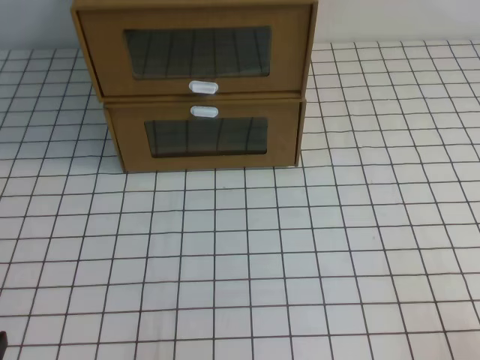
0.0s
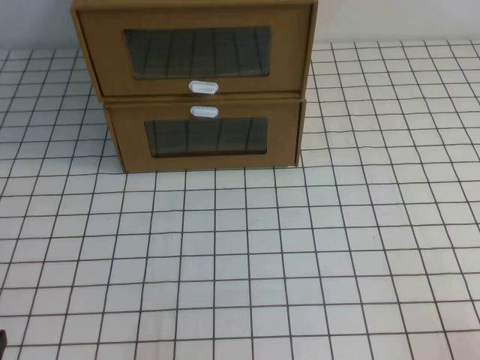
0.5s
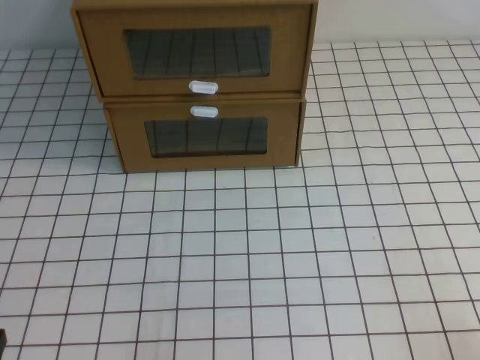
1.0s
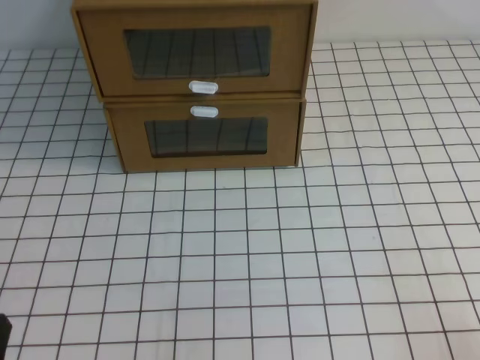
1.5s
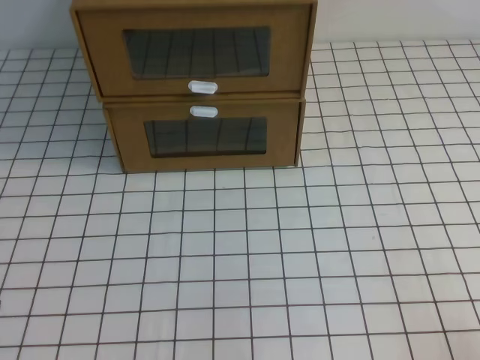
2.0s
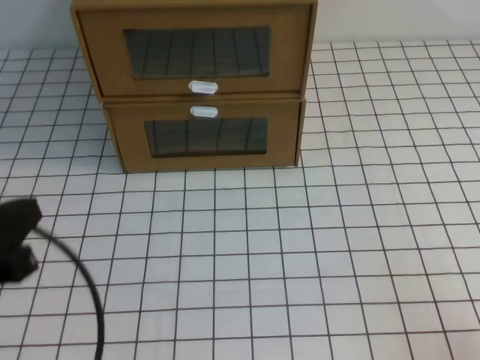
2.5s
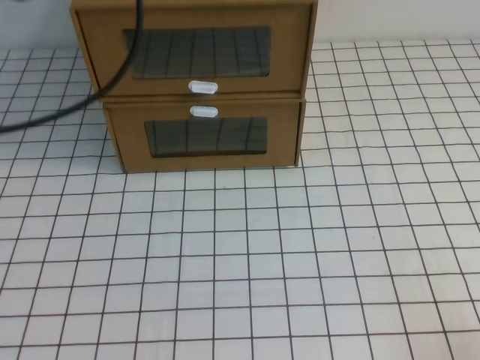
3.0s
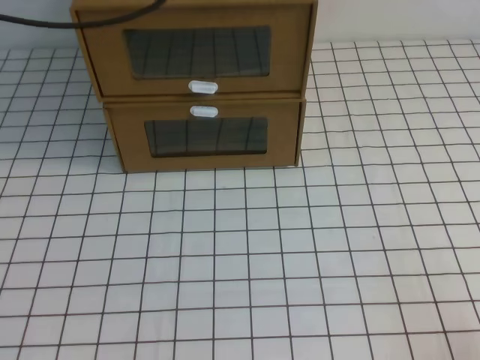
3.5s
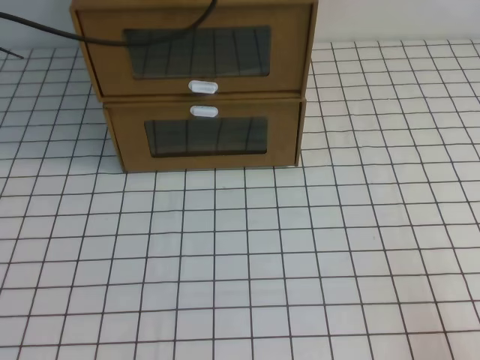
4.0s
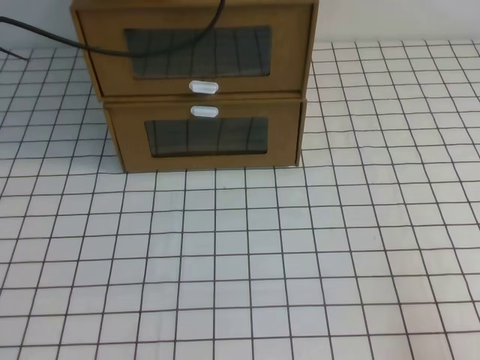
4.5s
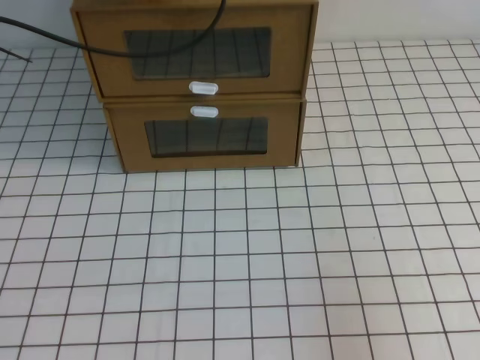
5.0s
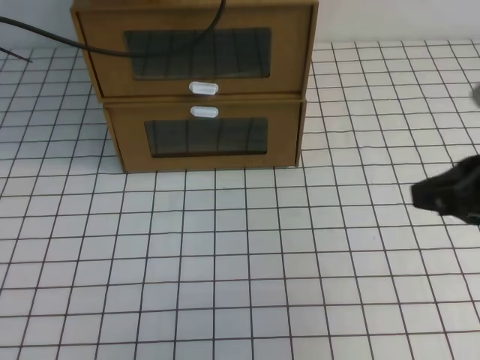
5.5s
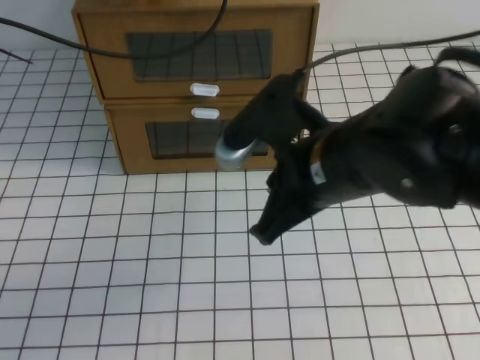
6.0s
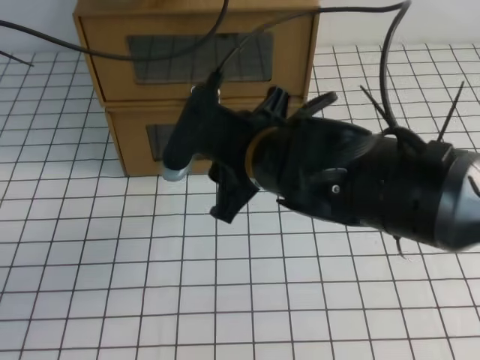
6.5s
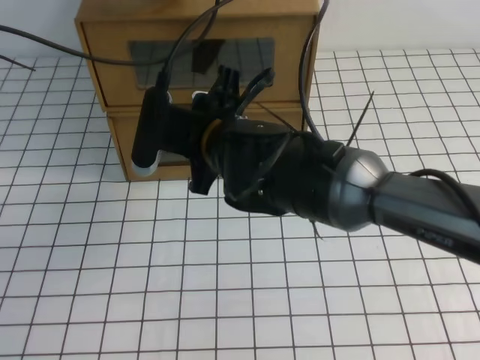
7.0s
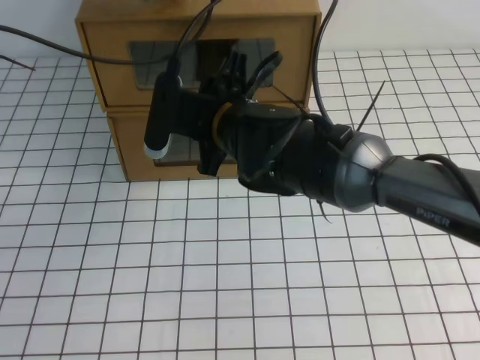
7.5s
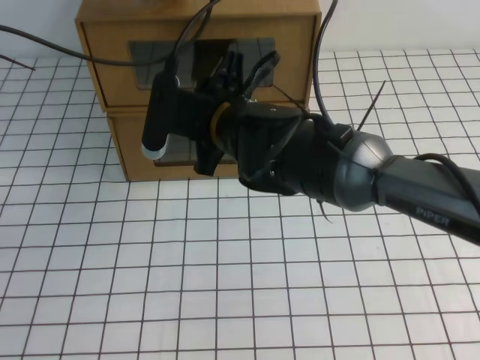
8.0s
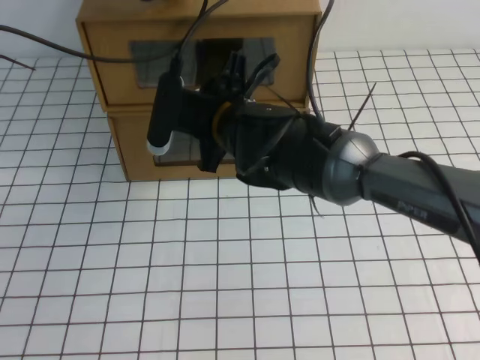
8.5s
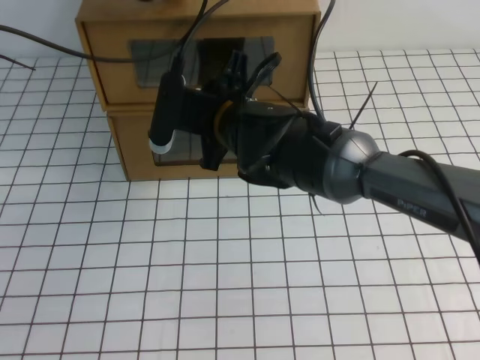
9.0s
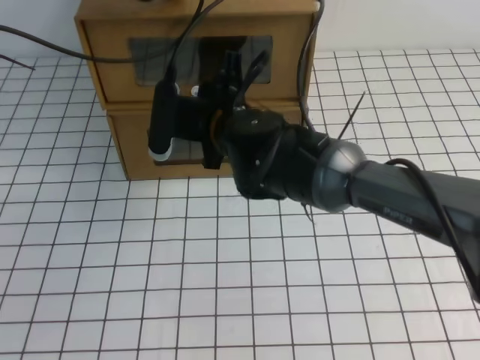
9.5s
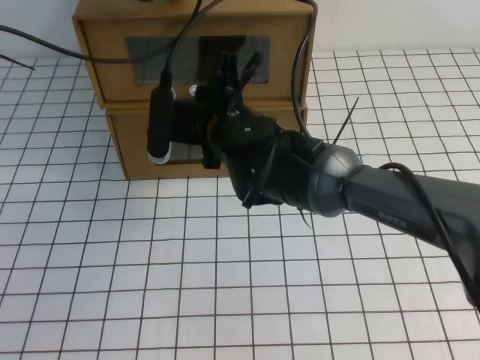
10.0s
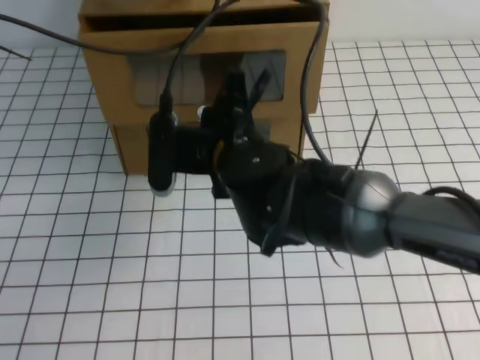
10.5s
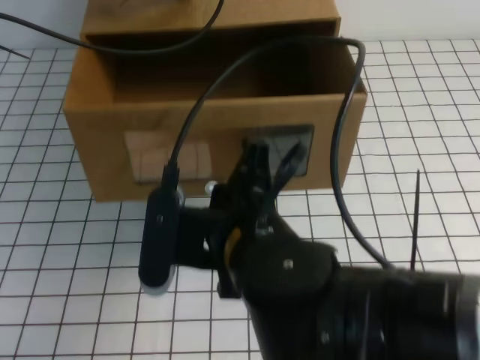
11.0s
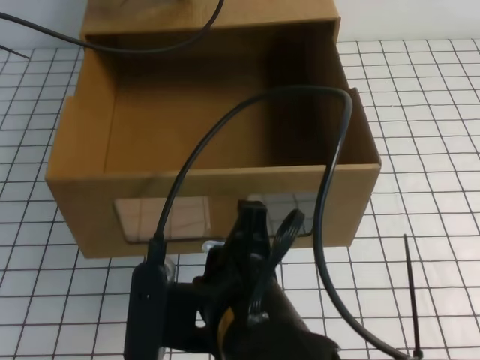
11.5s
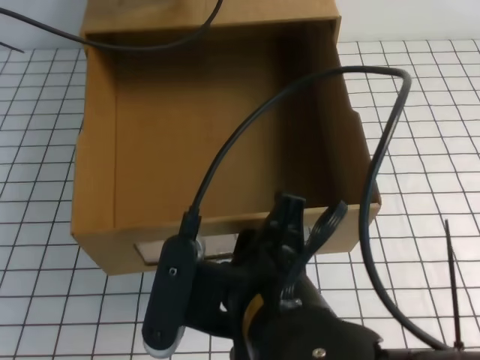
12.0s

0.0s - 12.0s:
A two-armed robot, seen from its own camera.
Task of the whole recording: open the shoebox on the white tablecloth.
4.0s - 6.0s: The right gripper shifts roughly 30 cm to the left, forward and upward.
6.0s - 8.0s: The right gripper moves to the left and forward, roughly 15 cm, and opens up.
8.0s - 10.0s: The right gripper closes its fingers.
10.0s - 12.0s: The right gripper goes some 25 cm backward, and opens.

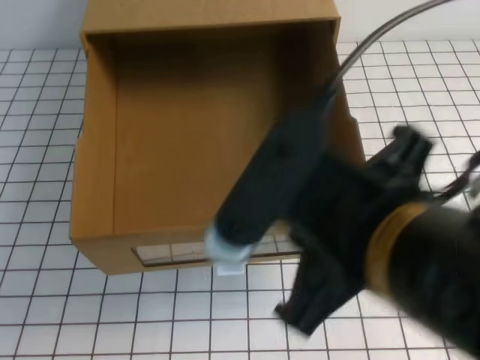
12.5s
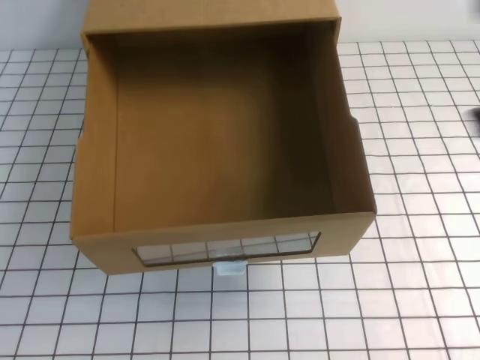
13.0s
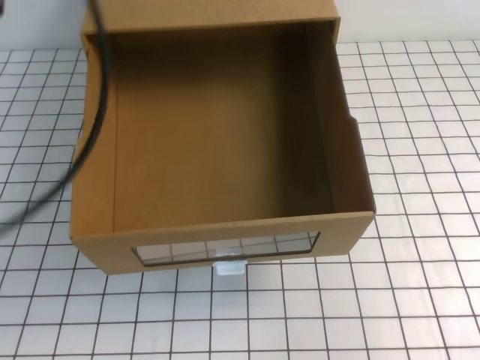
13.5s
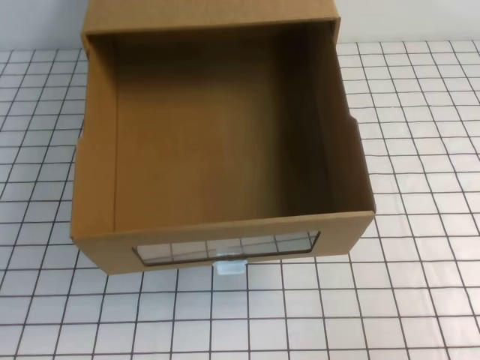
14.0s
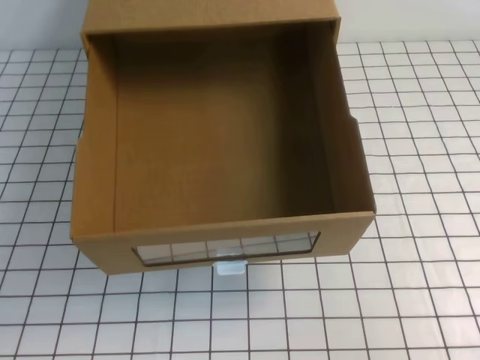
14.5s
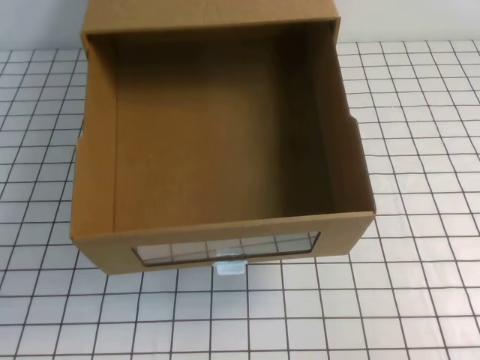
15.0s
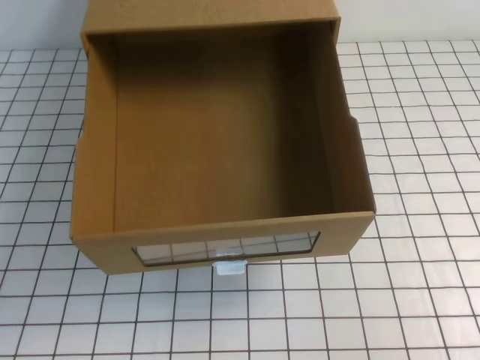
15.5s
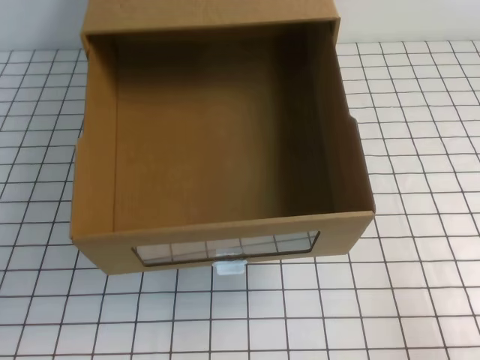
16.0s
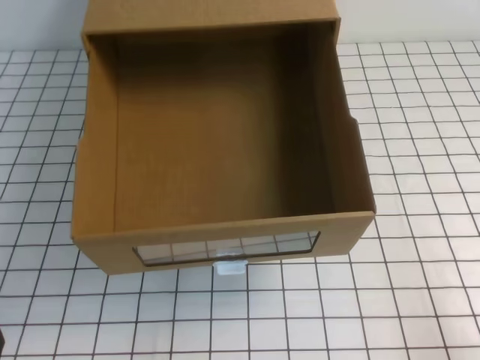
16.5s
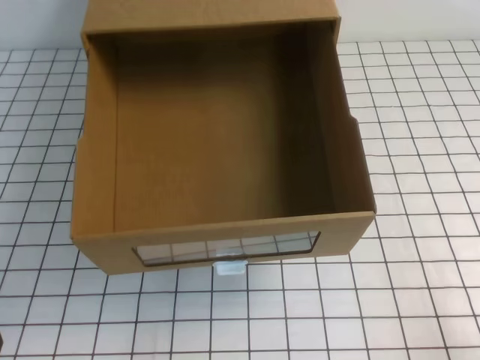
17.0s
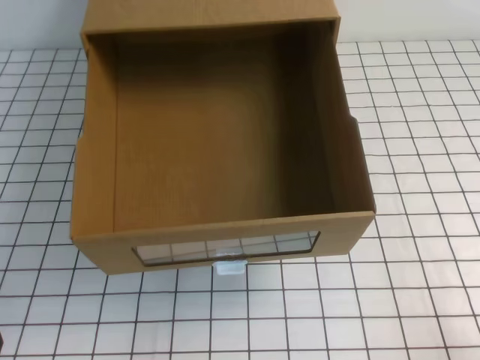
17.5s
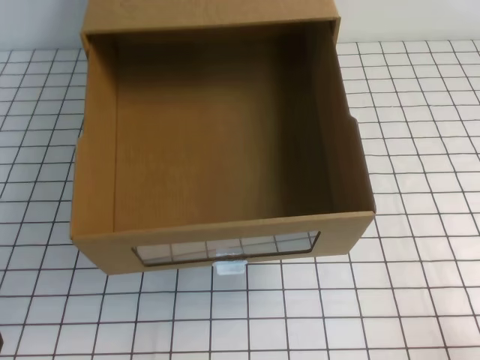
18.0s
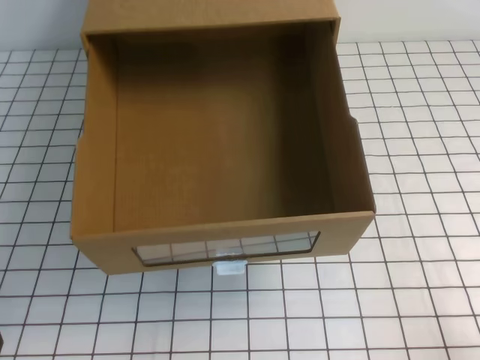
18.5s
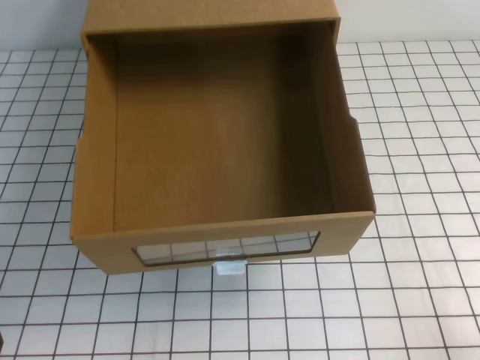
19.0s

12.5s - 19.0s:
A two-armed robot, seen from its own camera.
Task of the whole recording: open the shoebox on the white tablecloth.
Step, 12.5s - 19.0s: Open the shoe box.
12.5s - 14.5s: The right gripper shifts some 20 cm to the right, while the left gripper goes some 40 cm backward and downward.
14.5s - 17.0s: The right gripper moves downward, about 15 cm.

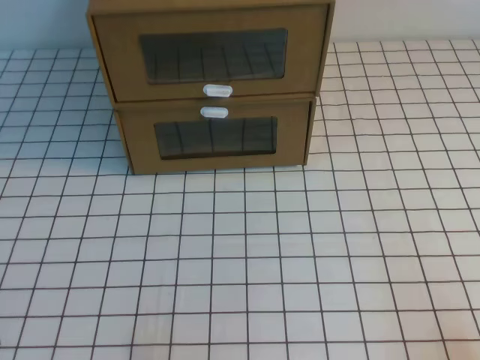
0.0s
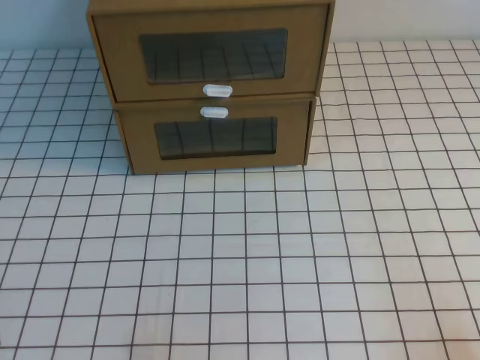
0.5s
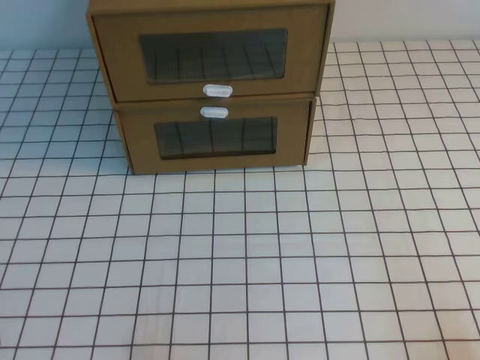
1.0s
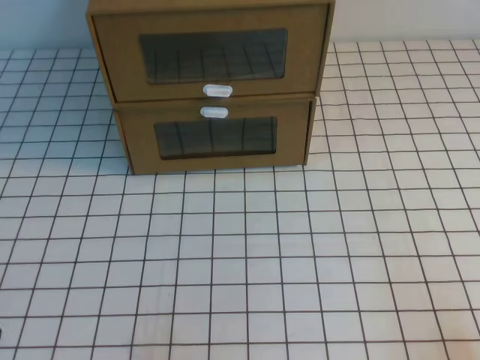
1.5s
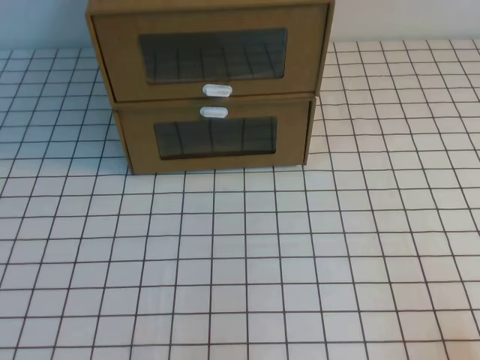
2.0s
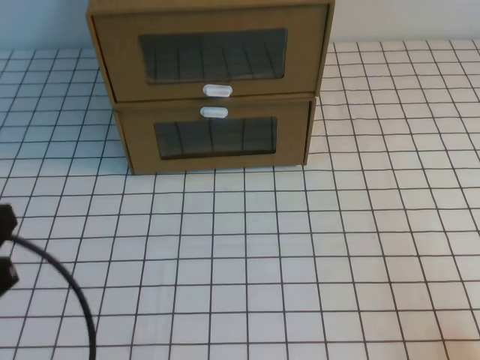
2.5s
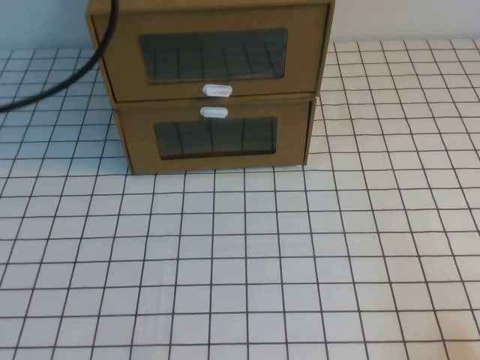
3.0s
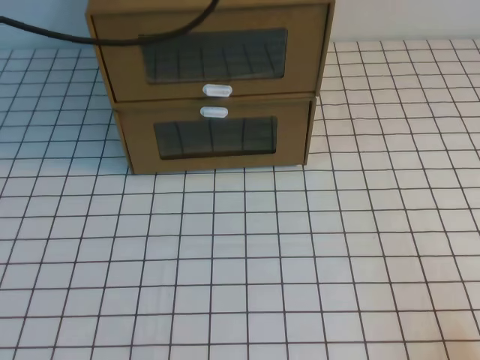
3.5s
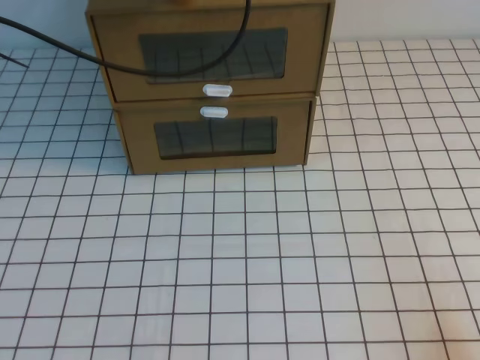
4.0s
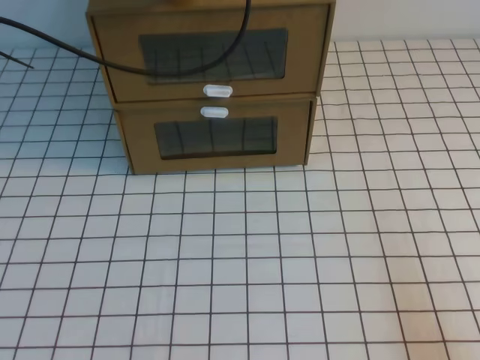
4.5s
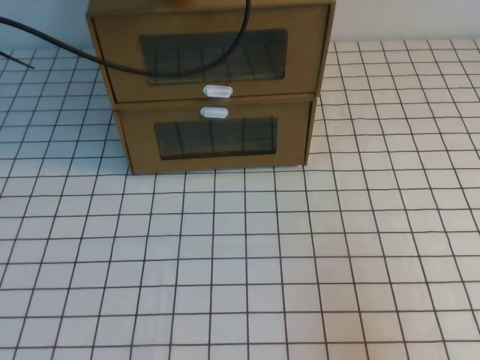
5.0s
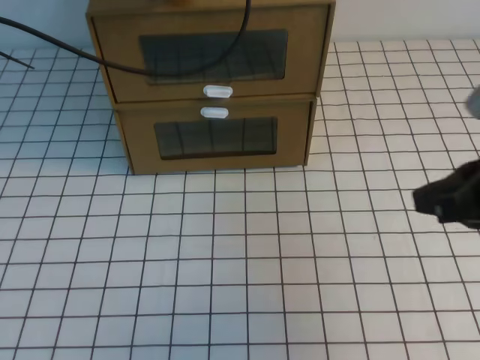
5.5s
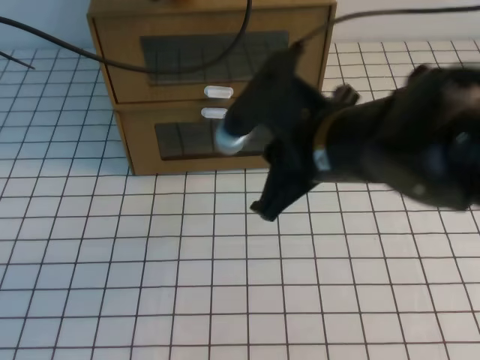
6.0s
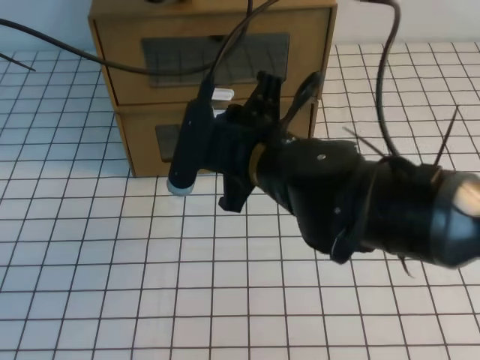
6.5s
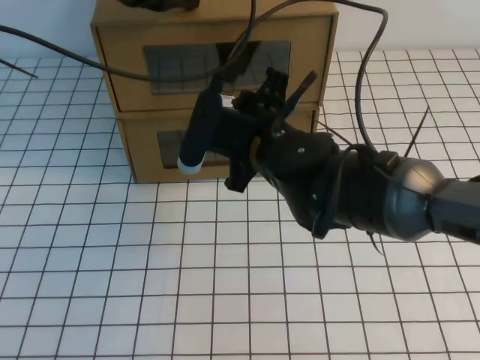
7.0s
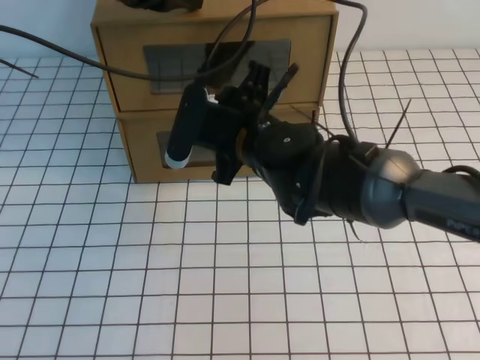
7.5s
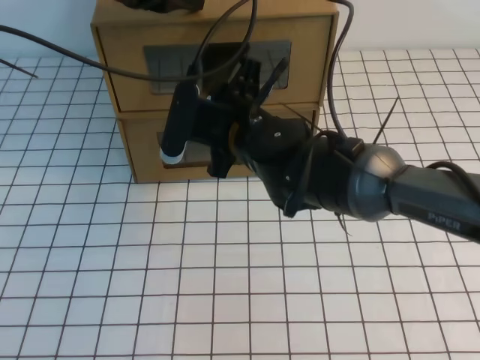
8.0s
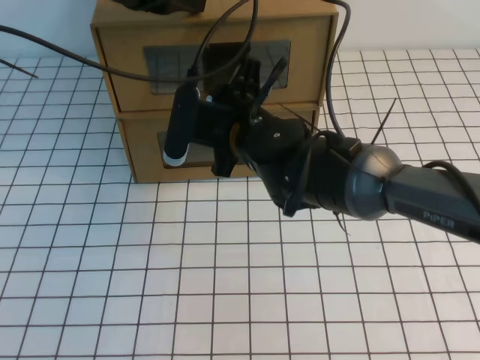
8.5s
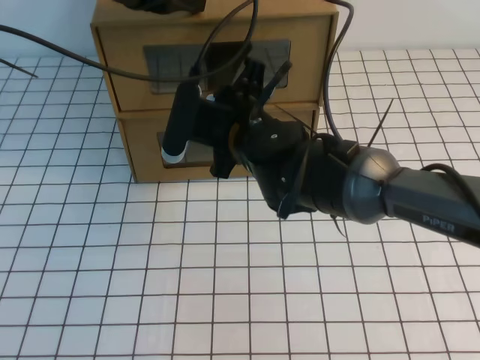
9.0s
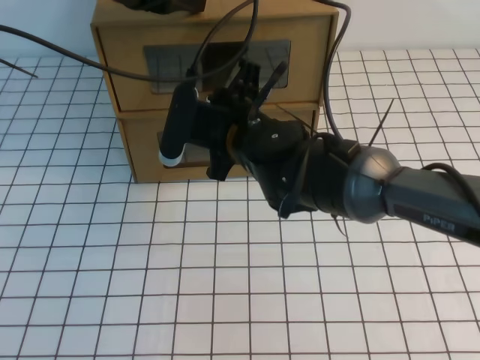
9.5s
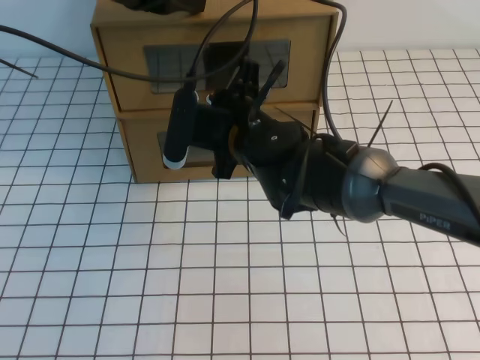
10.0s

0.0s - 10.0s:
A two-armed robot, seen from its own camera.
Task of the whole recording: open the shoebox on the white tablecloth.
2.0s - 4.0s: The left gripper travels forward and upward by roughly 40 cm.
4.0s - 6.0s: The right gripper travels to the left, forward and upward by approximately 30 cm.
6.0s - 8.0s: The right gripper travels to the left, forward and downward by approximately 15 cm, and opens up.
8.0s - 10.0s: The two grippers keep their place.
